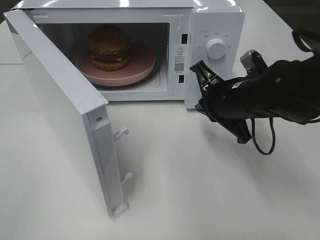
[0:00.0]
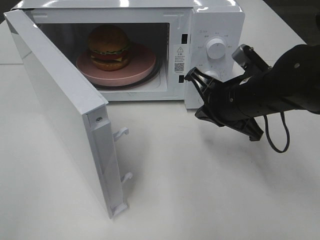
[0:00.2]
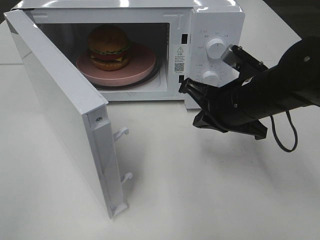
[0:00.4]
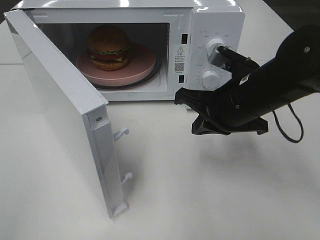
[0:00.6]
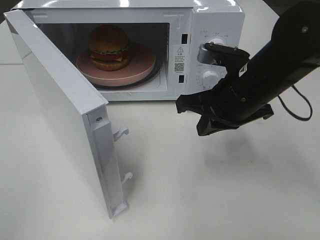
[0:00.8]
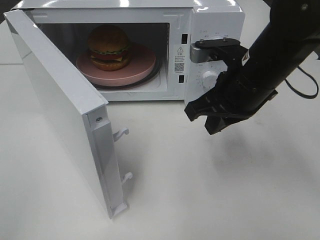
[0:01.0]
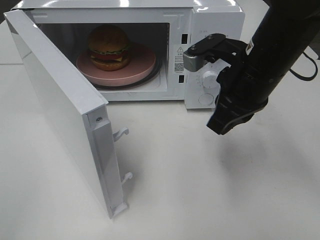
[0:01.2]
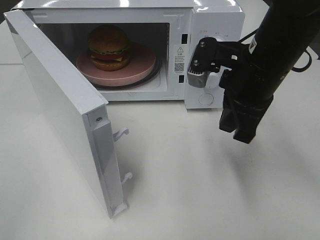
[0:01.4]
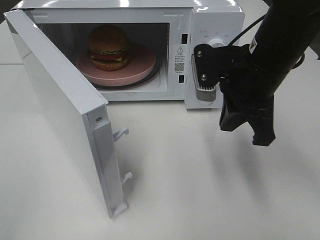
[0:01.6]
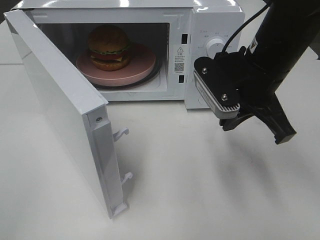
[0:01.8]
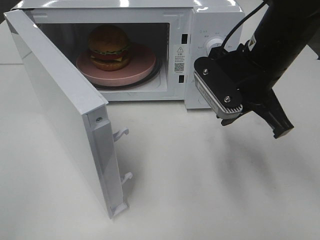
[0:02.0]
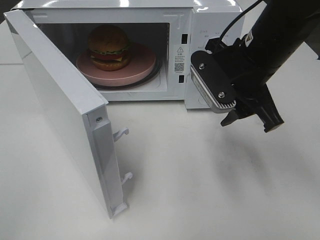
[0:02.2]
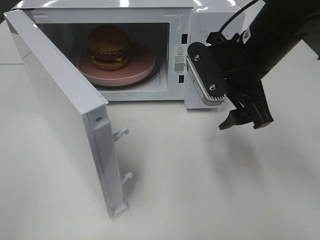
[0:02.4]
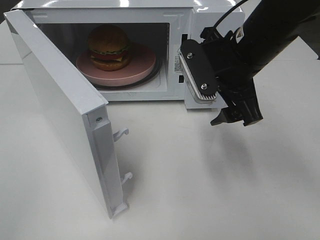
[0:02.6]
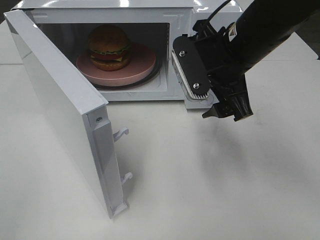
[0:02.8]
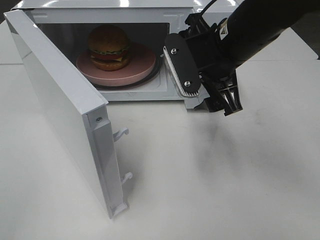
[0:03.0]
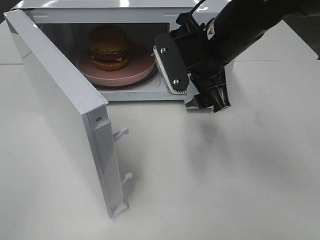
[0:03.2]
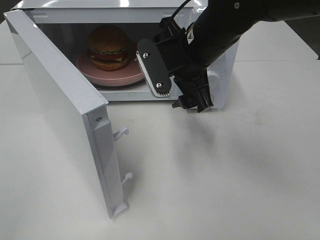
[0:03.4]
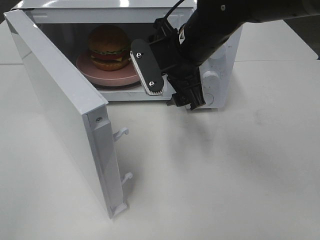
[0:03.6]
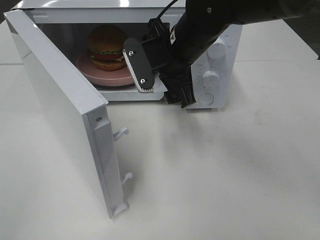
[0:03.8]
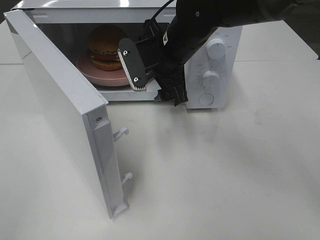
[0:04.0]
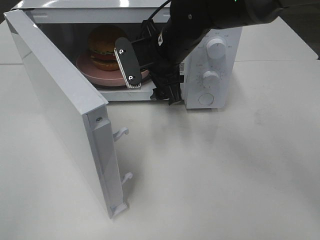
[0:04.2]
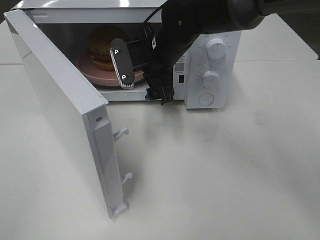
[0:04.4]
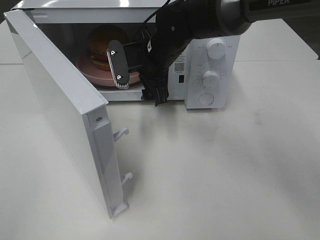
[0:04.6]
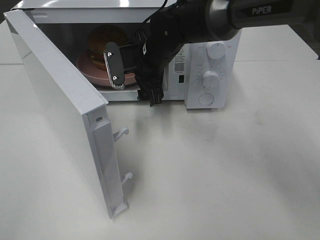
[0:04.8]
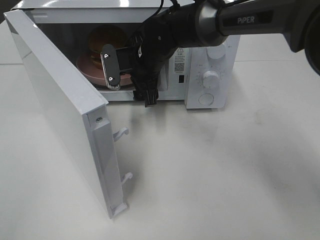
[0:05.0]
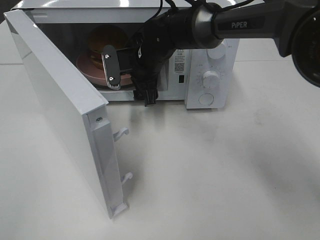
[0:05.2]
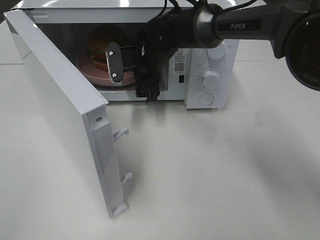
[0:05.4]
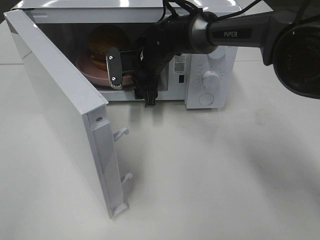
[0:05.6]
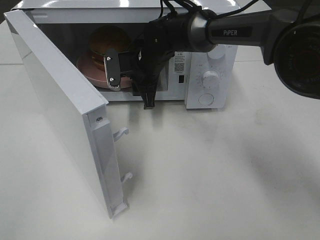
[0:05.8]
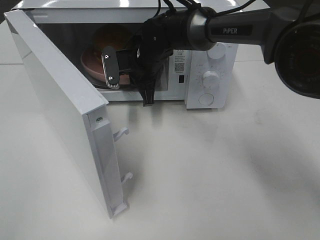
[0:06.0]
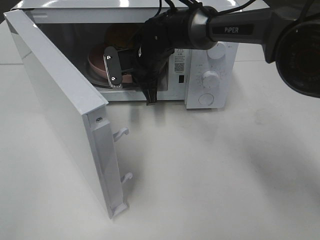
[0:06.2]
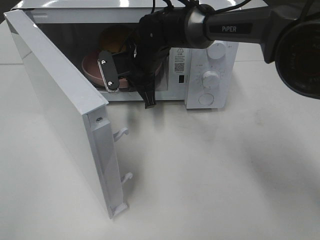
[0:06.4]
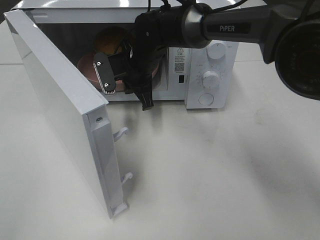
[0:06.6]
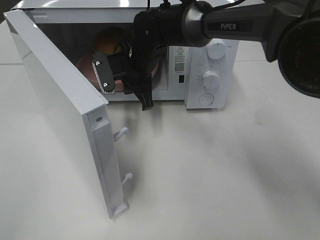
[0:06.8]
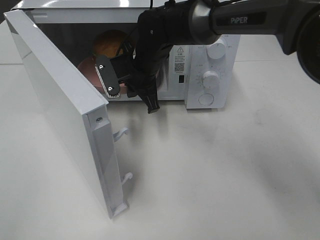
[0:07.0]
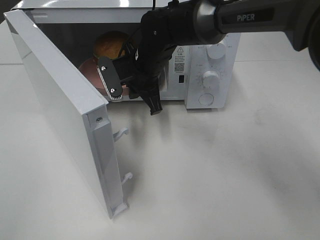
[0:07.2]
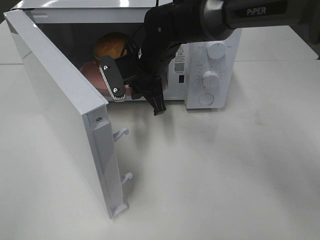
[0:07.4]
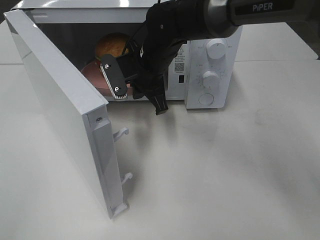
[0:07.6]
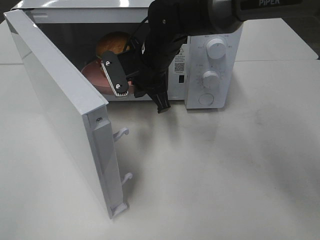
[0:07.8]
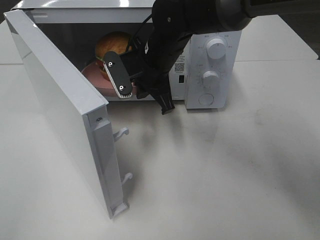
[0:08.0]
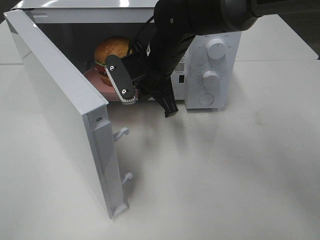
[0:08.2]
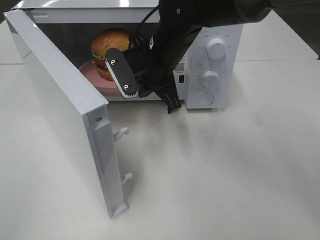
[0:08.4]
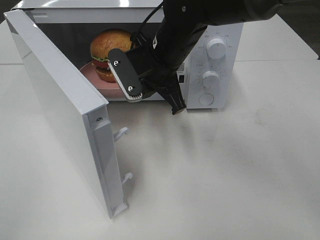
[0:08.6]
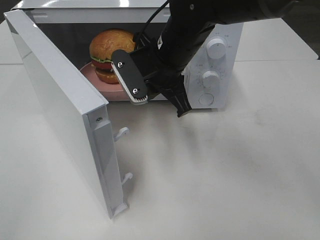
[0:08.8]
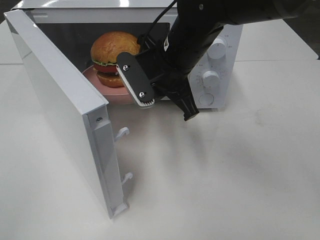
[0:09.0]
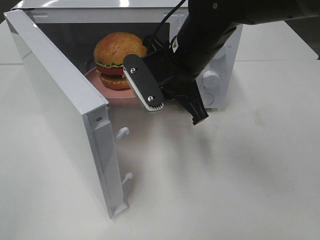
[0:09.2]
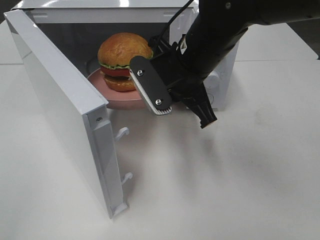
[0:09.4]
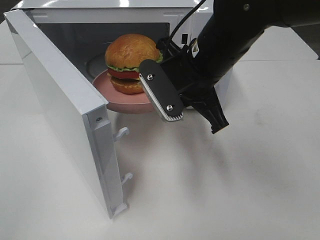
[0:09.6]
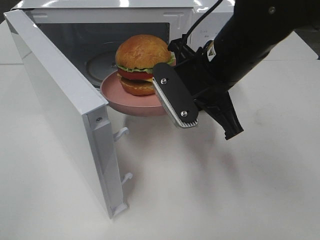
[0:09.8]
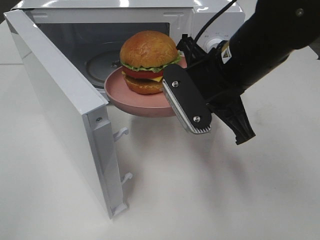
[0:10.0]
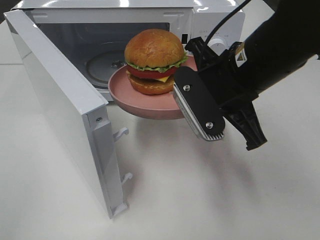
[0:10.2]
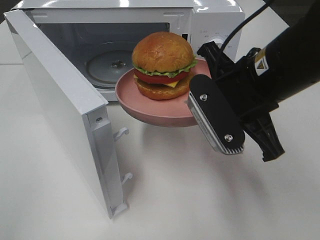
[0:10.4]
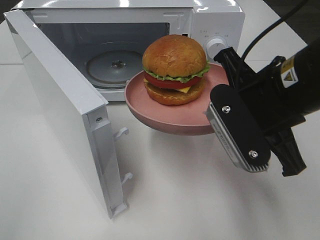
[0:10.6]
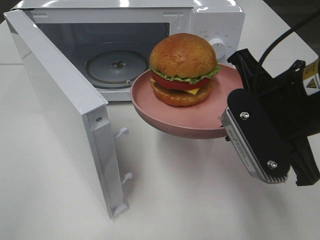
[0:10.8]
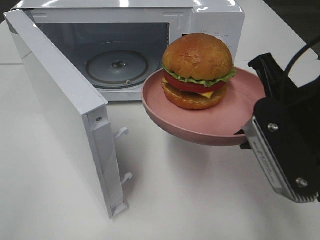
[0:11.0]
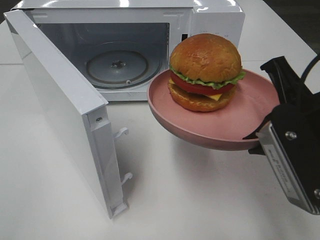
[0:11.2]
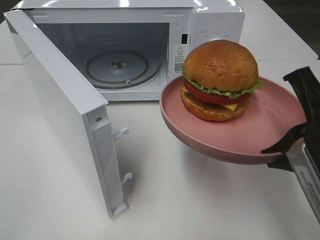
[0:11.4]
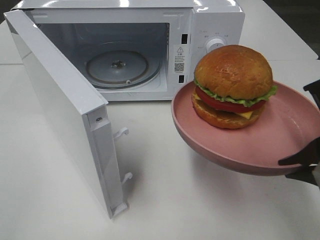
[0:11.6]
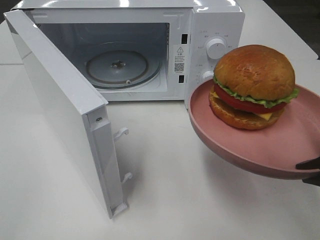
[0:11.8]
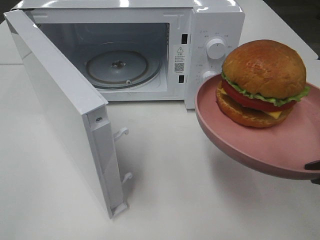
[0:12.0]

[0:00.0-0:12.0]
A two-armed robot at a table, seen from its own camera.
Task of the whole recording: Heat the burger.
Step, 0:00.0 to 0:06.0: Right hand: grab the plate with the hamburger.
0:00.0 to 0:01.6: The right gripper moves upward, roughly 10 cm.
0:01.6 to 0:03.0: The right gripper opens up.
0:03.0 to 0:04.4: The right gripper heads forward, to the left and downward, covering approximately 15 cm.
0:04.4 to 0:06.0: The right gripper travels forward by about 5 cm, and closes its fingers.
0:06.0 to 0:07.6: The right gripper goes about 5 cm backward.
0:07.6 to 0:09.0: The right gripper heads backward, covering approximately 5 cm.
0:09.0 to 0:10.4: The right gripper heads backward and to the right, covering roughly 15 cm.
0:10.4 to 0:12.0: The right gripper moves backward and to the right, approximately 15 cm.

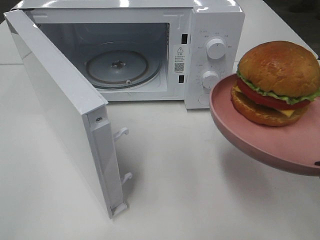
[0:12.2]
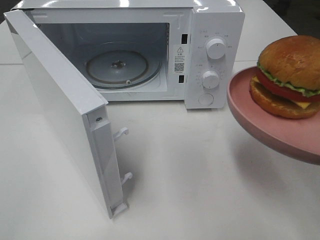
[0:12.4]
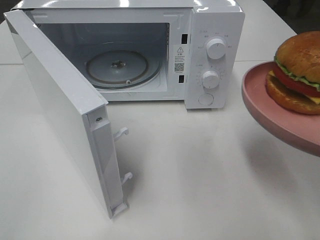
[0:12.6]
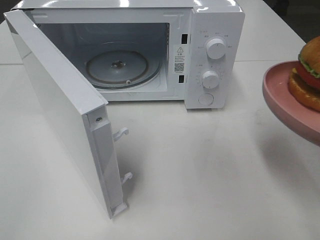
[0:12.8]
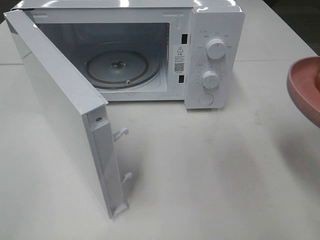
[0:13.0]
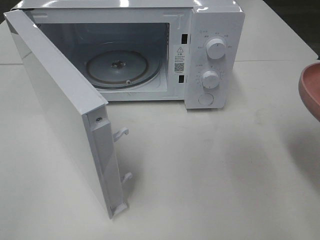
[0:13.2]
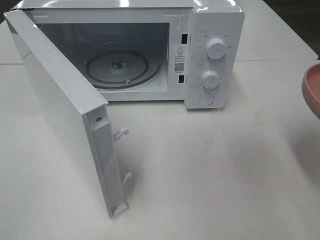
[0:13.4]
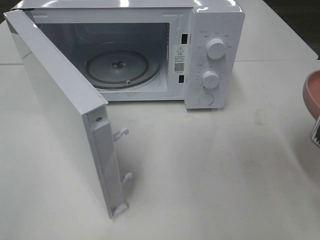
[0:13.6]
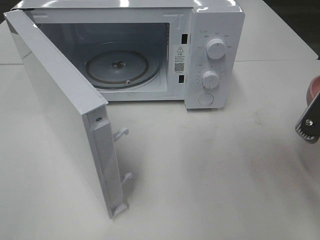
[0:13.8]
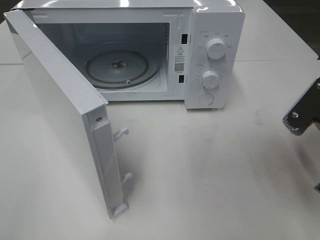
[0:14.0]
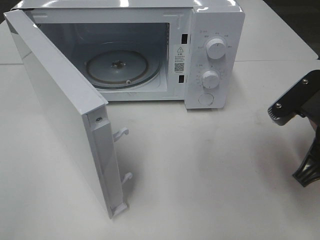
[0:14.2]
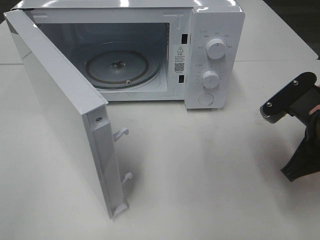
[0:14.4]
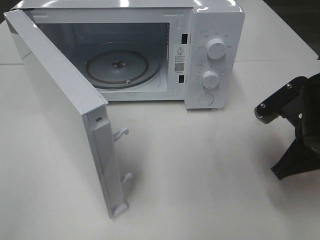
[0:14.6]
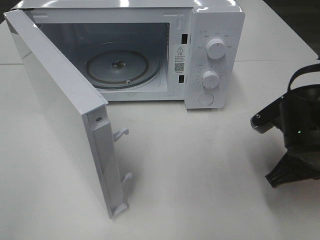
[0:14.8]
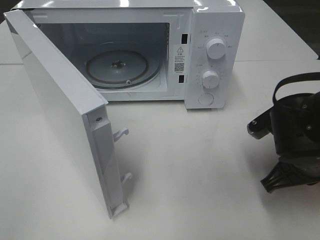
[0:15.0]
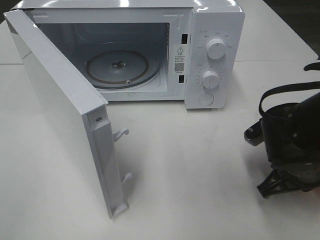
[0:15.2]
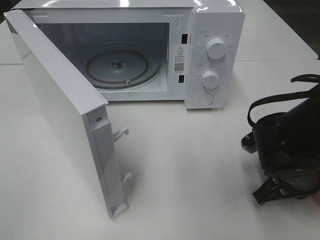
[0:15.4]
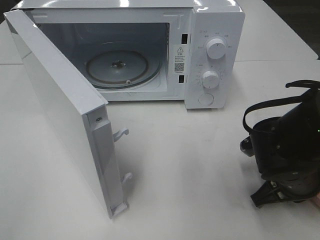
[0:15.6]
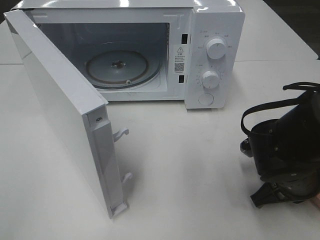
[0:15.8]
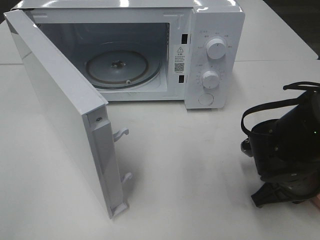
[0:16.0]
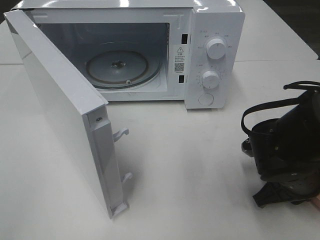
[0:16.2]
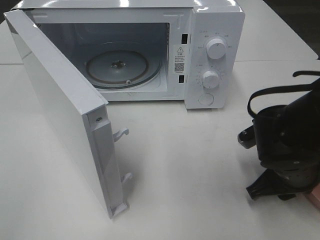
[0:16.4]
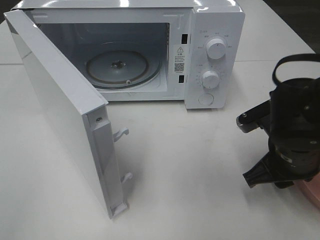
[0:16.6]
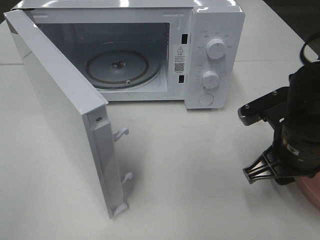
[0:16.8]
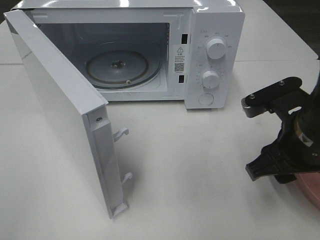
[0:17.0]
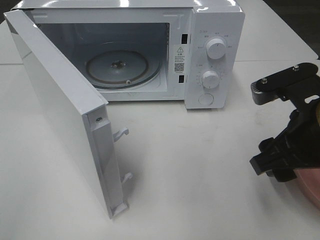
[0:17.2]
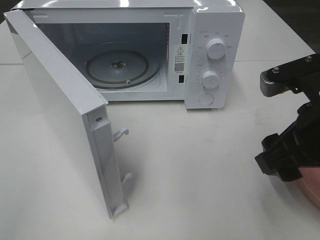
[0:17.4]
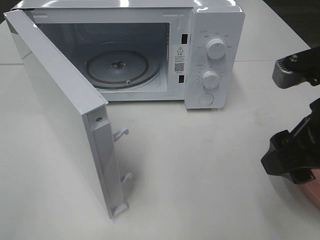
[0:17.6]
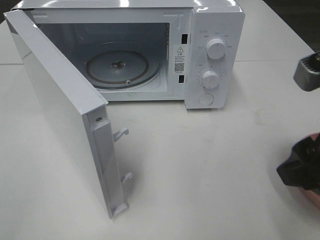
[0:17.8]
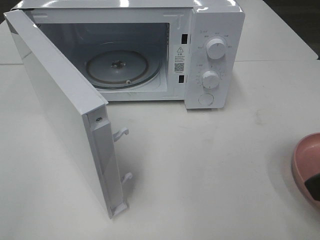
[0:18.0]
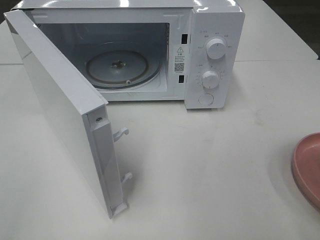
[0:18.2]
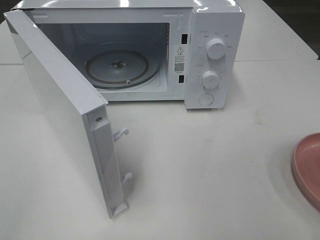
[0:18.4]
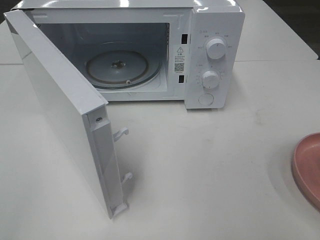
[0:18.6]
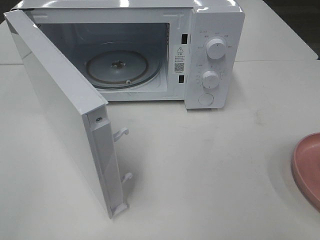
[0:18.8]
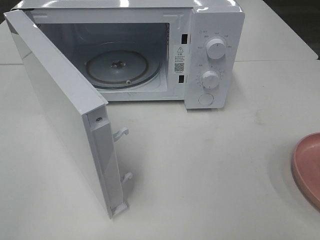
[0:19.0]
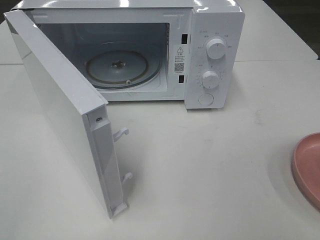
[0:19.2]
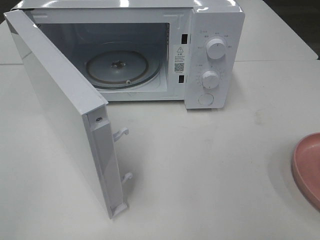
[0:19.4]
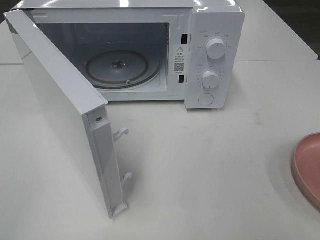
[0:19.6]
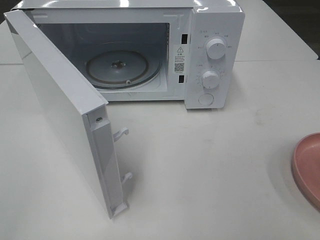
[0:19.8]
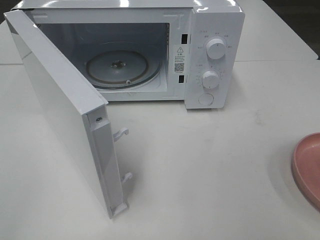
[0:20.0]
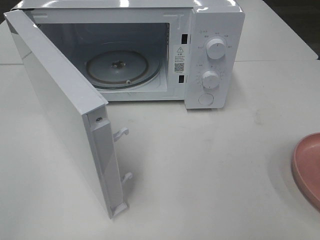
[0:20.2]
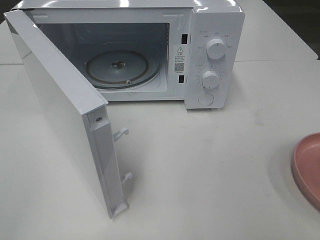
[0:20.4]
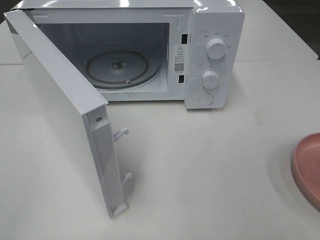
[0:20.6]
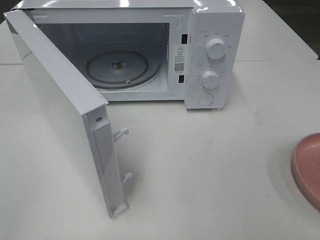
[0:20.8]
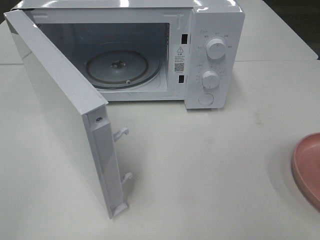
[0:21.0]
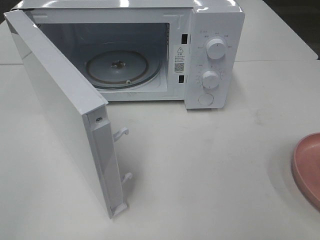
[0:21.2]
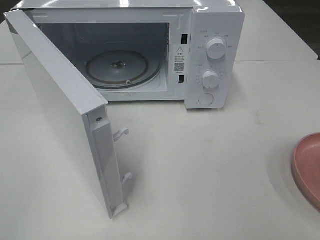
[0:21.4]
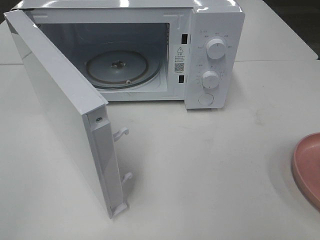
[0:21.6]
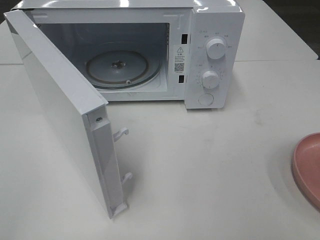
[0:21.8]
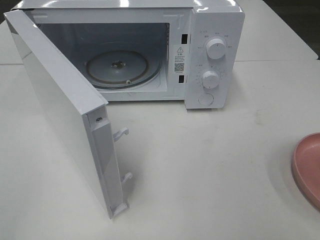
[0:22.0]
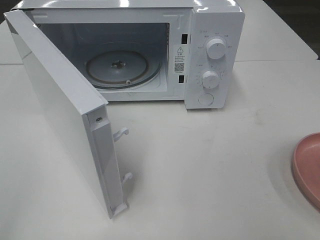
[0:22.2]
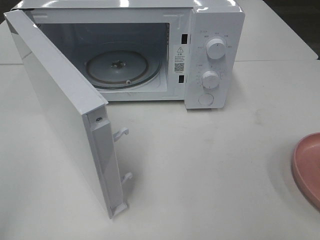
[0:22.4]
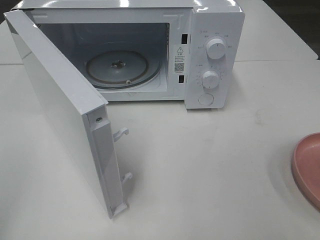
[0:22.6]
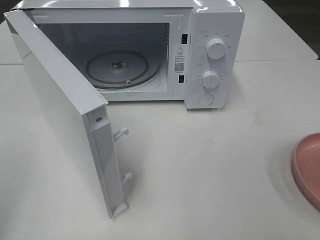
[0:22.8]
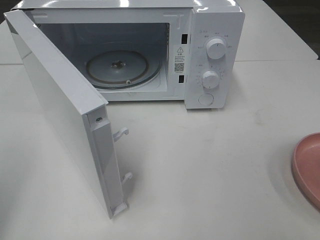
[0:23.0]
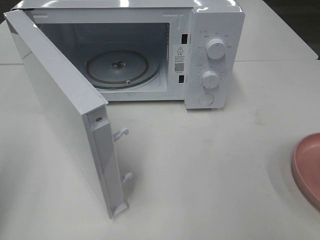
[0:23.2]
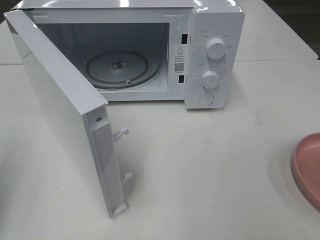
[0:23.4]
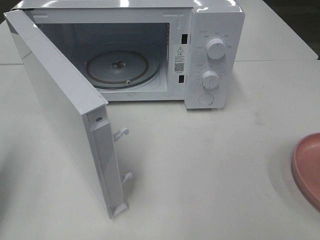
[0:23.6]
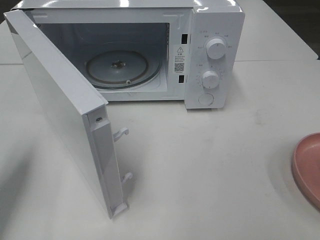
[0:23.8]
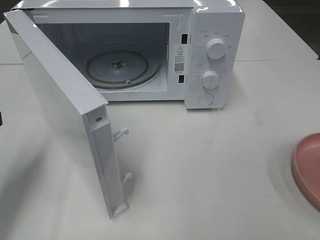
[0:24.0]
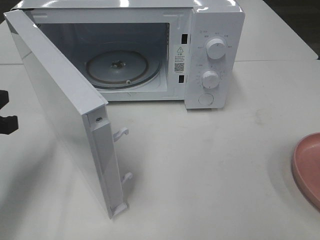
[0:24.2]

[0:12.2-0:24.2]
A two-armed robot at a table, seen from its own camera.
Task of the whole recording: Heat the burger.
Step, 0:12.2 to 0:16.2: Right hand: place the plate on the table.
0:12.2 to 0:13.8: The right gripper is displaced forward by about 5 cm.
0:13.8 to 0:15.2: The right gripper shifts approximately 15 cm downward and forward.
0:15.2 to 0:16.6: The right gripper opens.
0:16.6 to 0:18.2: The right gripper heads upward and backward, covering about 20 cm.
0:19.8 to 0:21.2: Both grippers stay put.
0:22.6 to 0:24.2: The left gripper is displaced forward and downward by some 20 cm, and closes.
